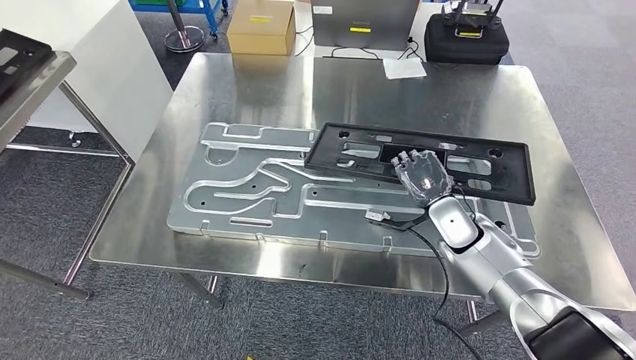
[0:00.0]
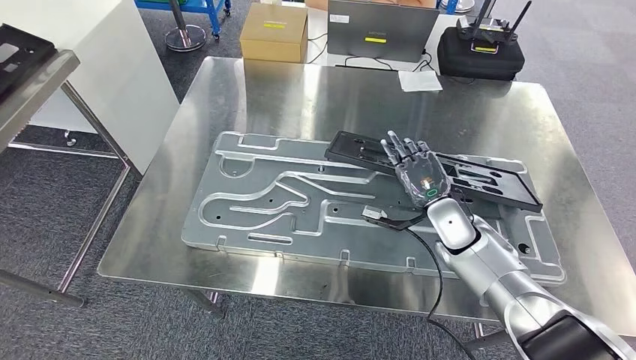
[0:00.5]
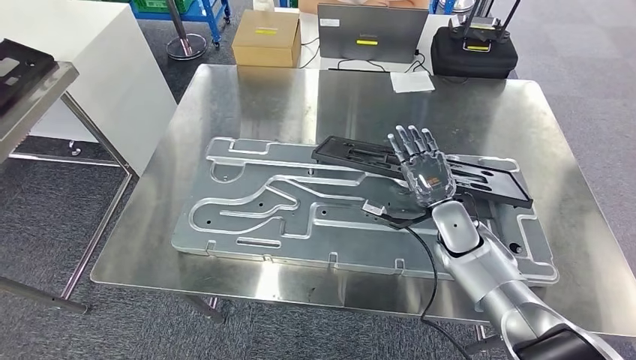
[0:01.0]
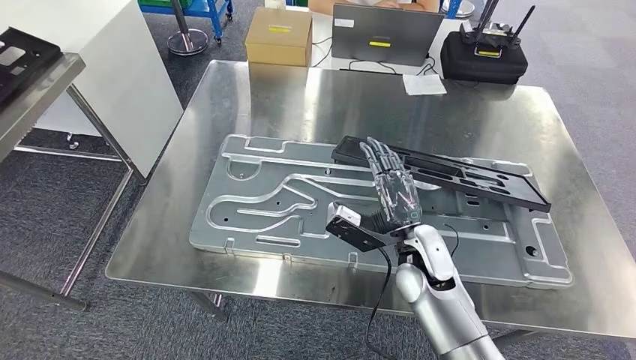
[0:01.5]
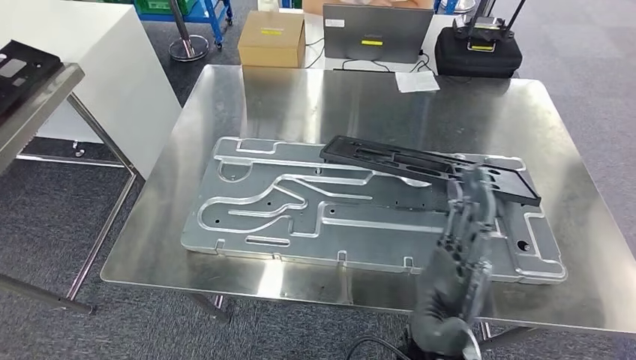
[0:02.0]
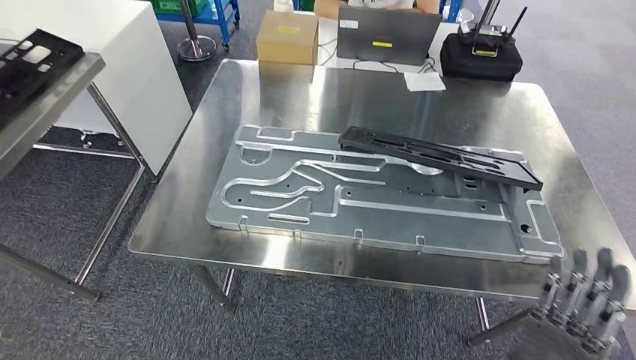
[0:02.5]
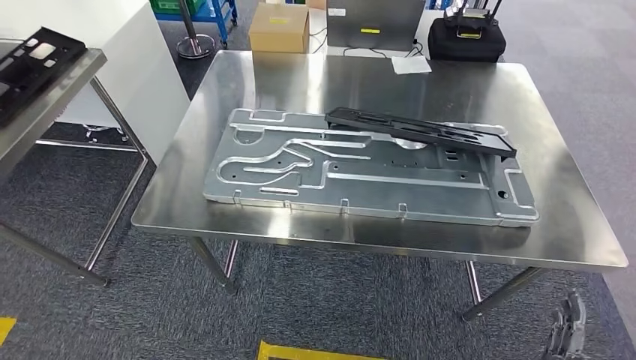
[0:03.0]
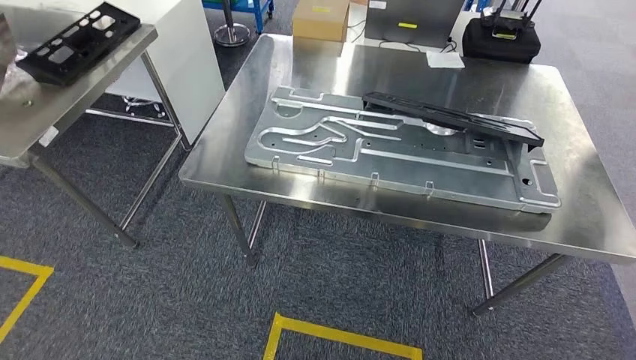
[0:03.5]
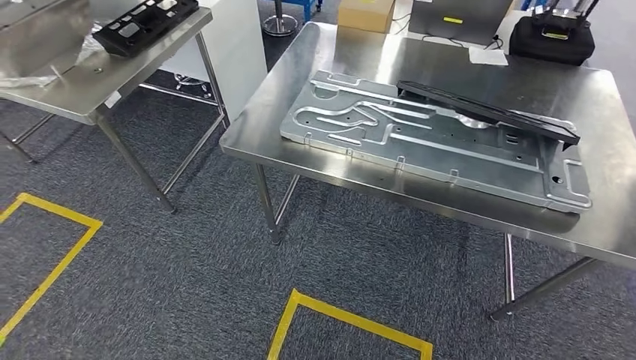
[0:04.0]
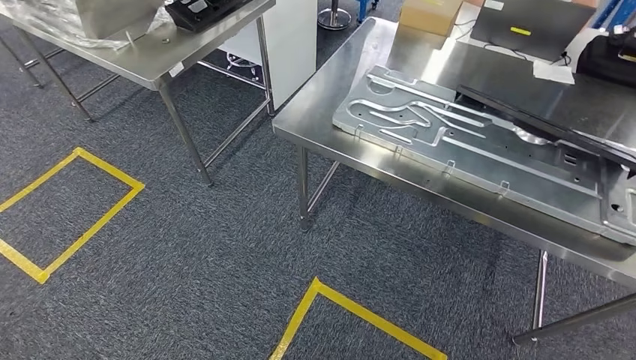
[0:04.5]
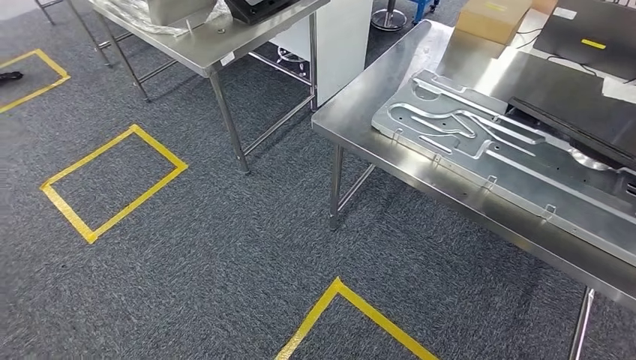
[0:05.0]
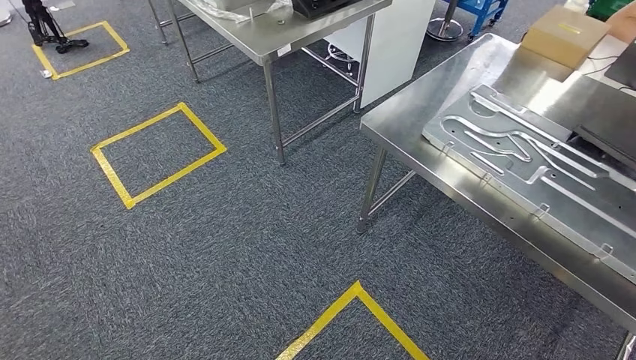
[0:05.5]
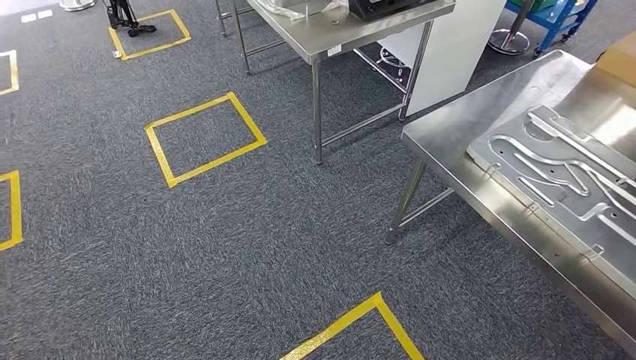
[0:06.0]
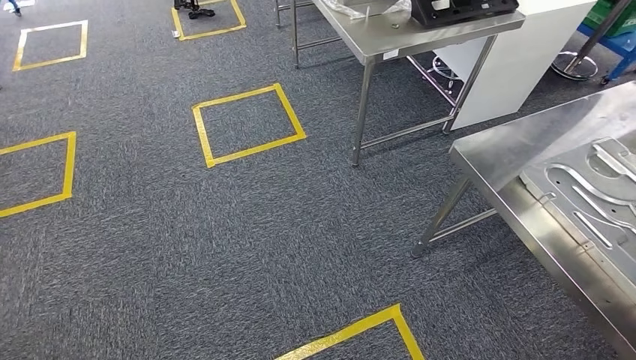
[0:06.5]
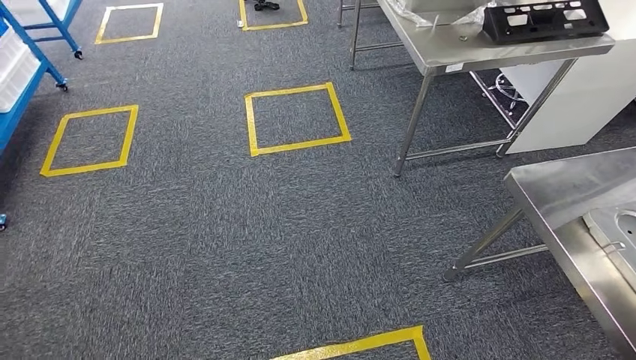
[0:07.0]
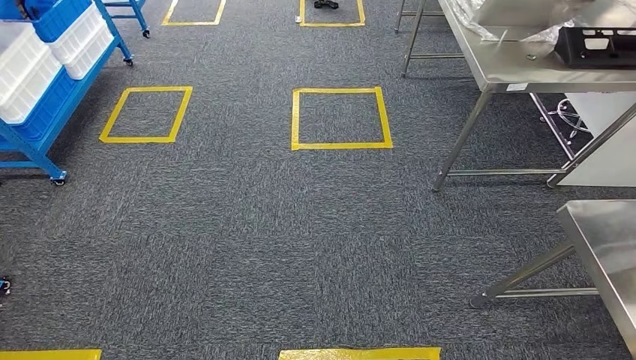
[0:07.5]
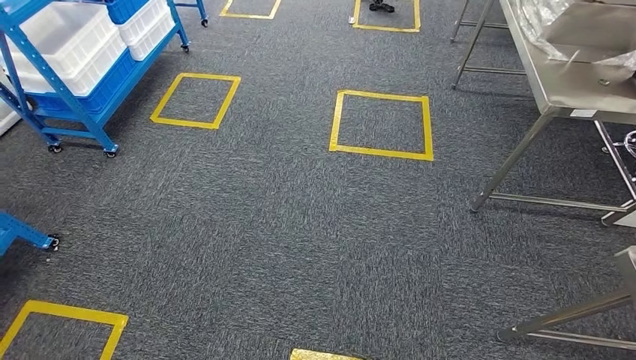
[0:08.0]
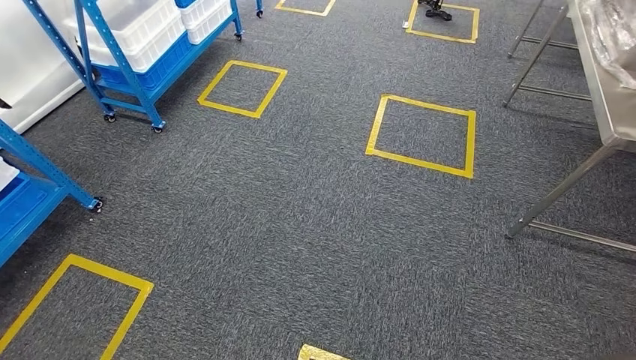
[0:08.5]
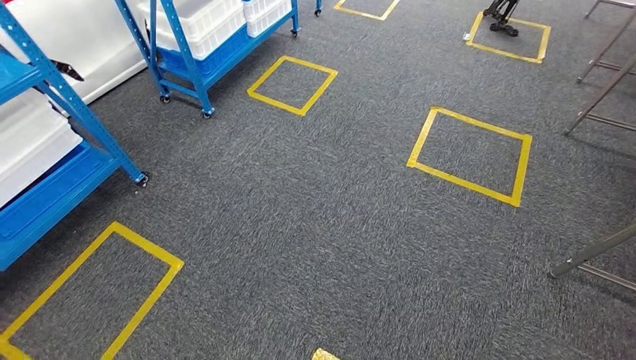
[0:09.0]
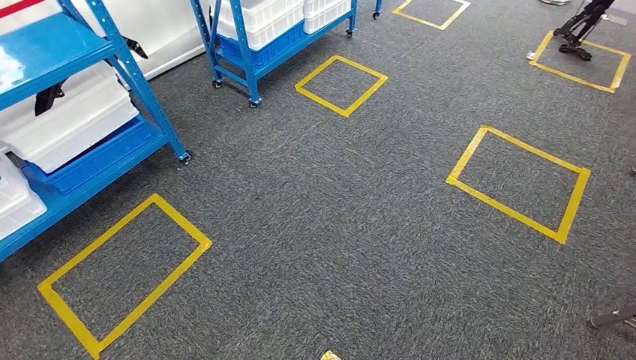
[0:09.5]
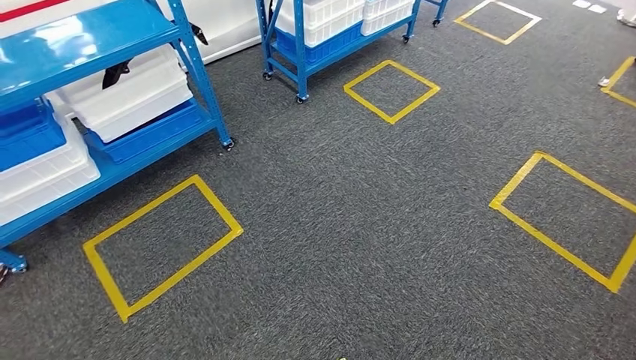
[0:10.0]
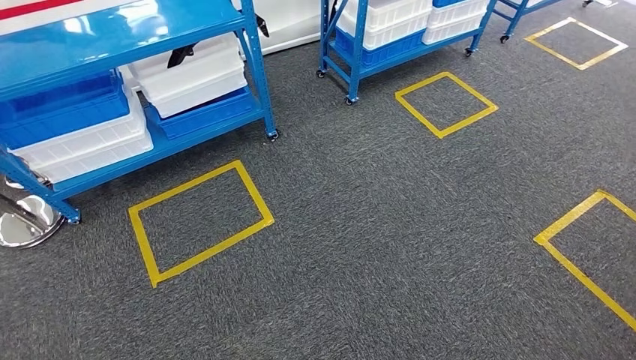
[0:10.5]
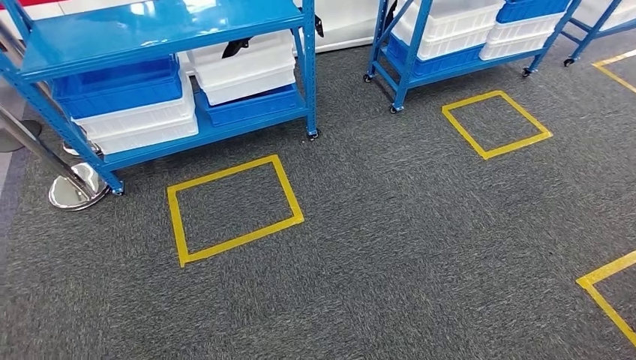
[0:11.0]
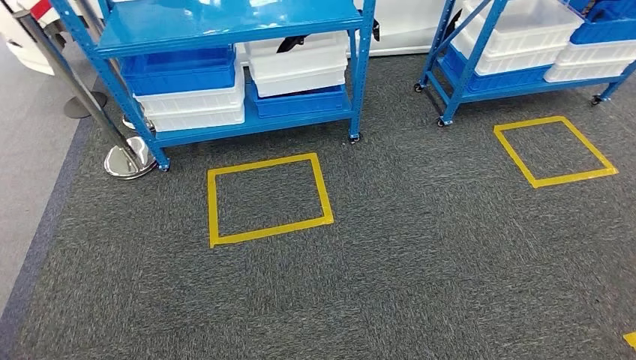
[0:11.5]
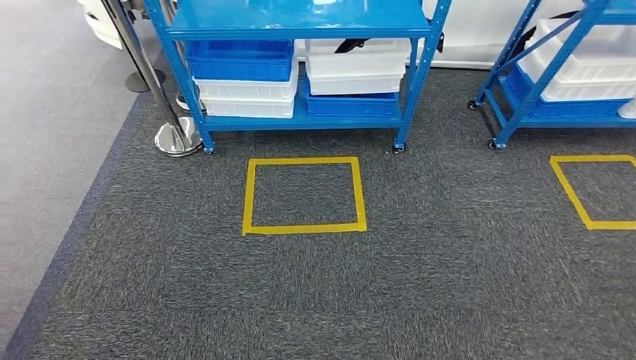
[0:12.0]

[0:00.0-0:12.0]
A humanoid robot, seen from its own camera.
Step, 0:00.0 to 0:03.0: Insert the large material into the corresponding hole on the workbench.

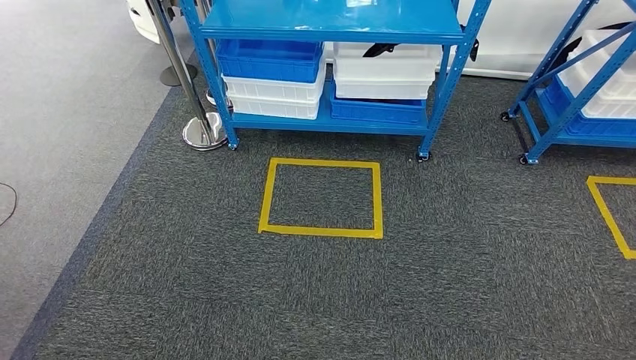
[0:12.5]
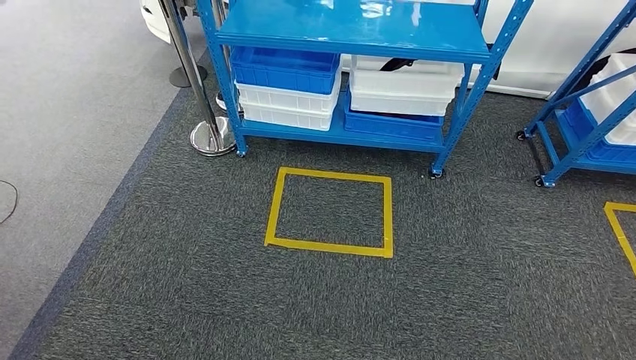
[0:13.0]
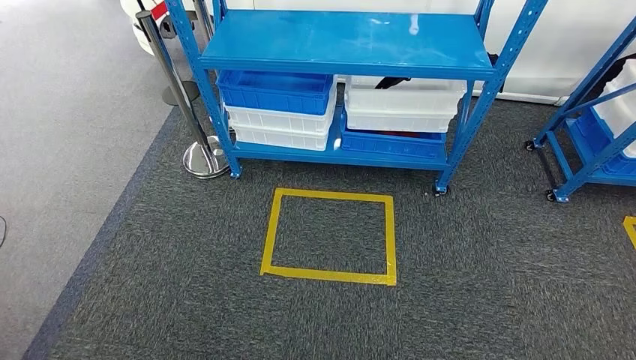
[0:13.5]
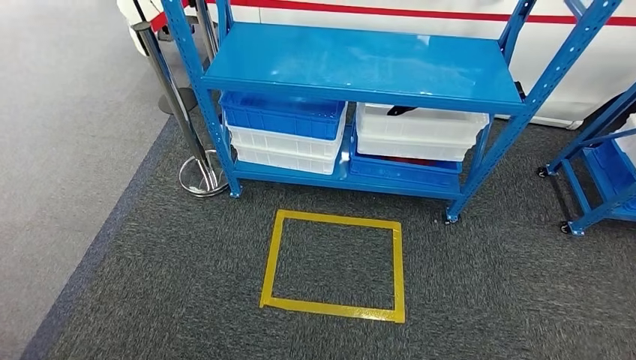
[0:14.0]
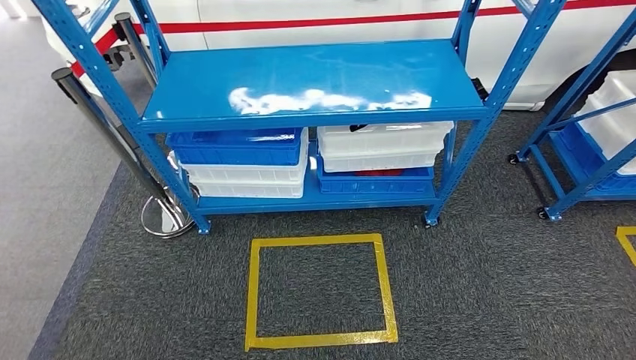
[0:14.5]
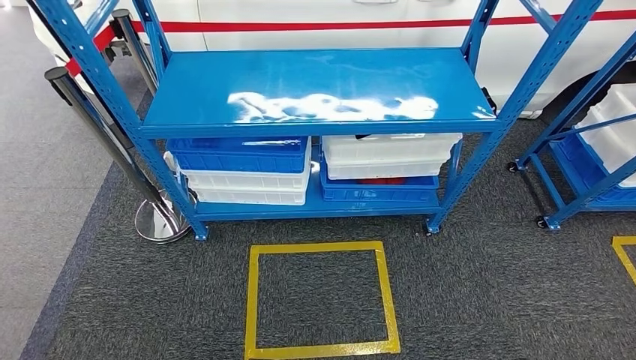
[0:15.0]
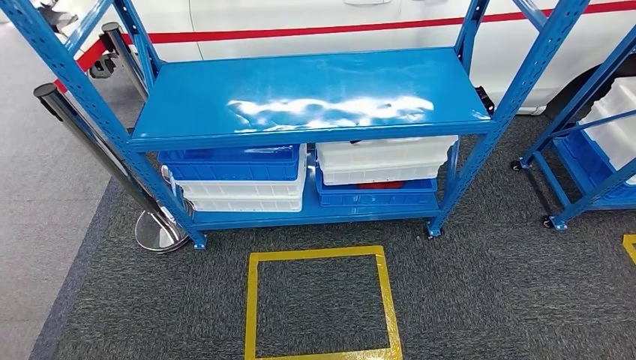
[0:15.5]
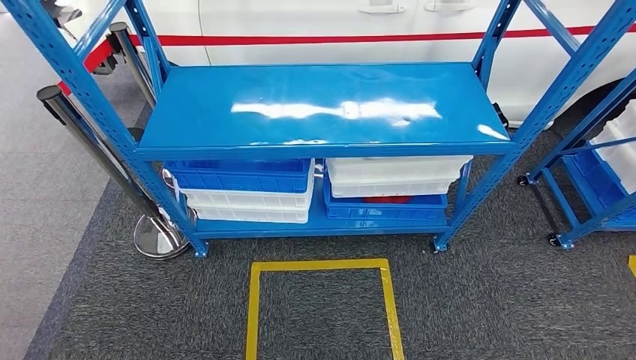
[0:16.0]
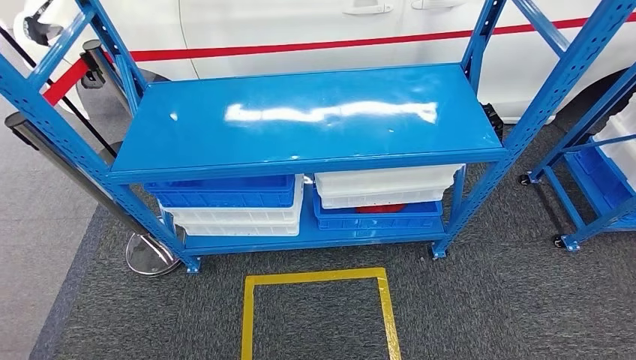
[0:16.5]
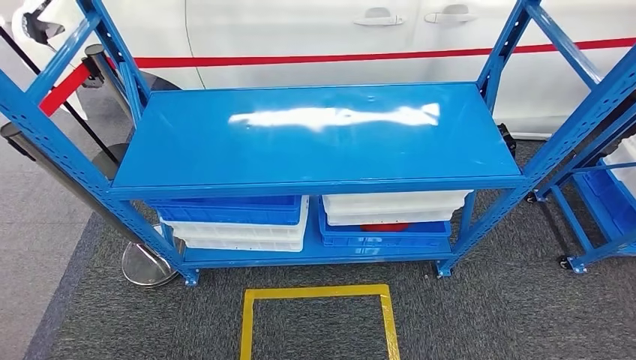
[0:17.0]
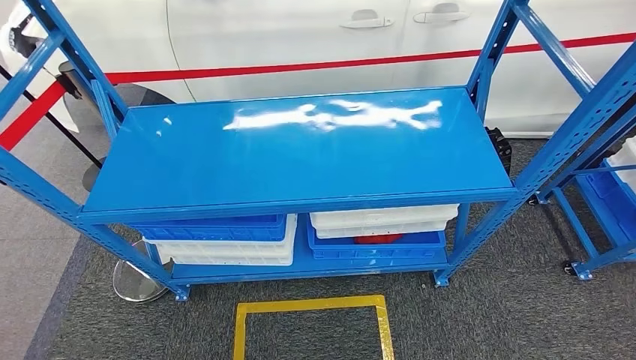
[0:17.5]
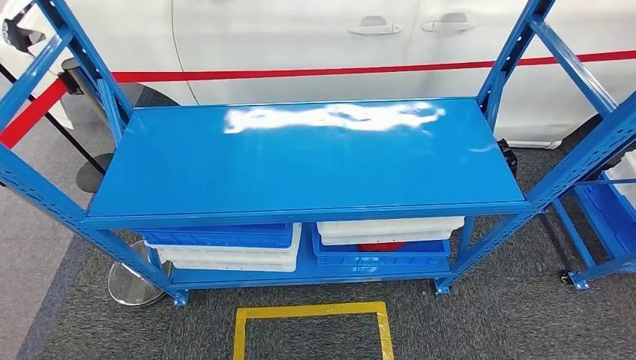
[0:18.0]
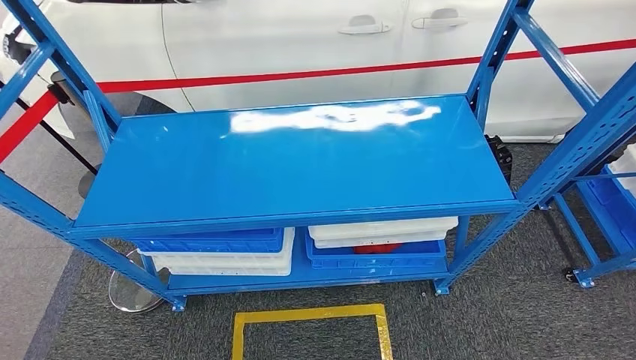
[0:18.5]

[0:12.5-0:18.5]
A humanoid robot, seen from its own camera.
Step, 0:12.5 to 0:18.5: Move to the initial position of the shelf.
